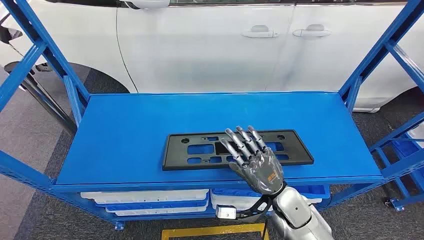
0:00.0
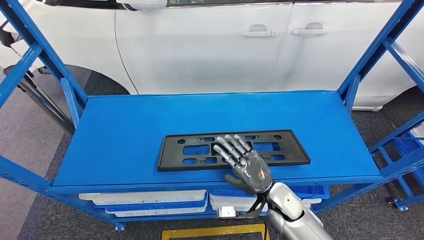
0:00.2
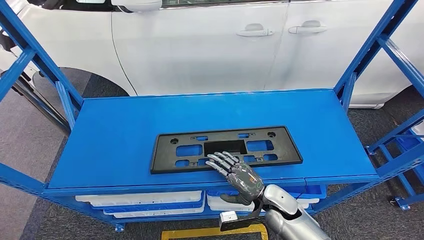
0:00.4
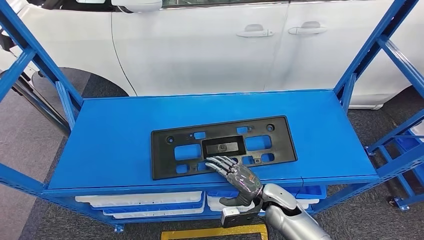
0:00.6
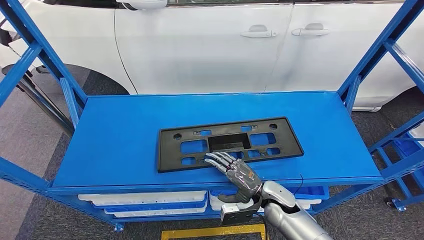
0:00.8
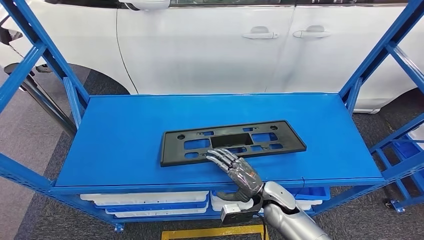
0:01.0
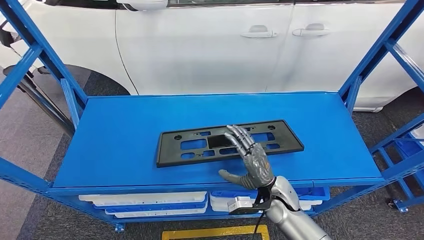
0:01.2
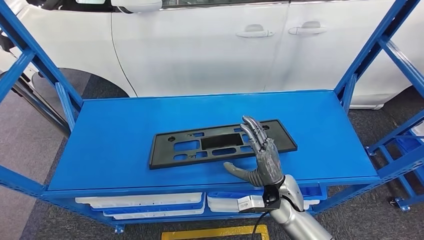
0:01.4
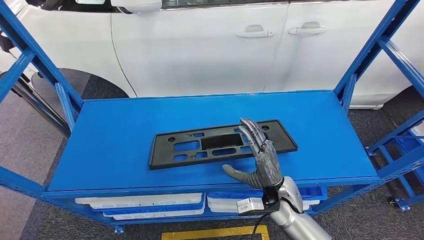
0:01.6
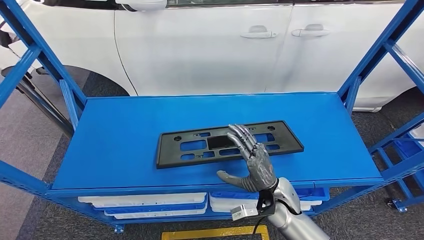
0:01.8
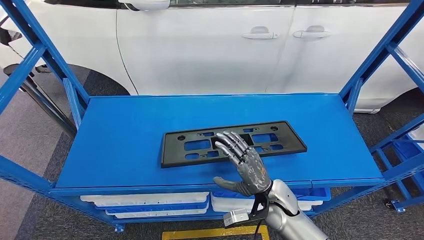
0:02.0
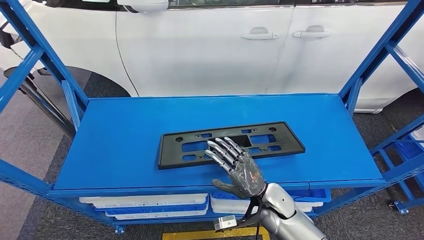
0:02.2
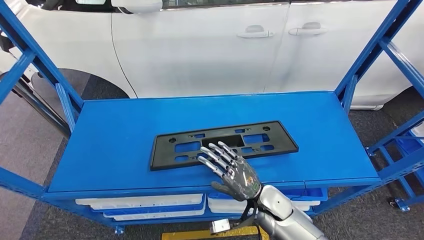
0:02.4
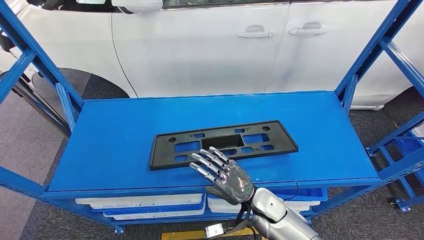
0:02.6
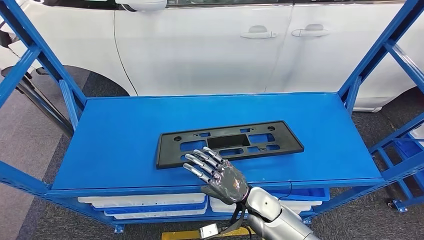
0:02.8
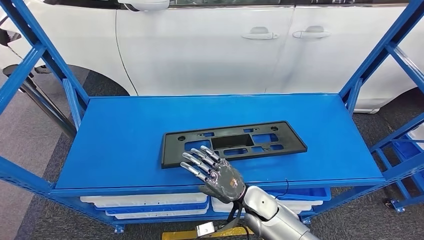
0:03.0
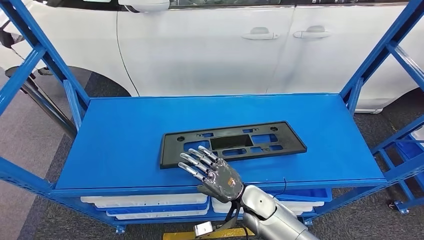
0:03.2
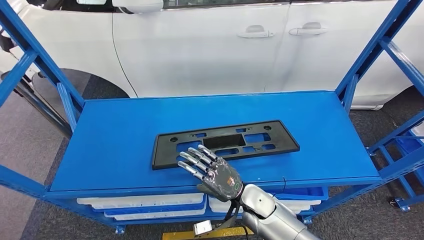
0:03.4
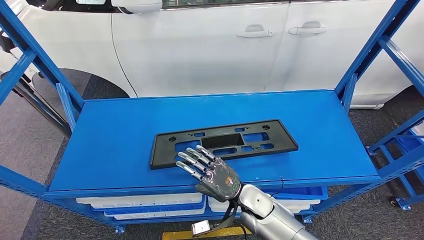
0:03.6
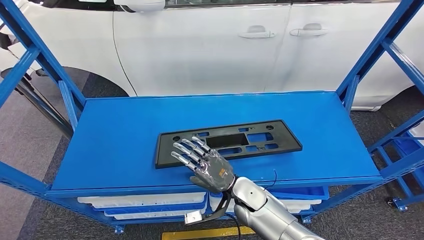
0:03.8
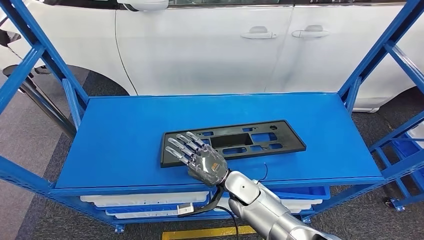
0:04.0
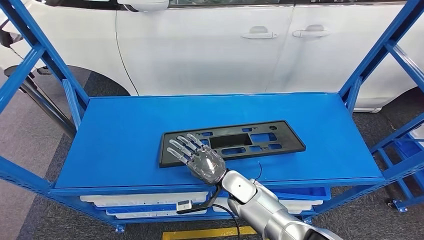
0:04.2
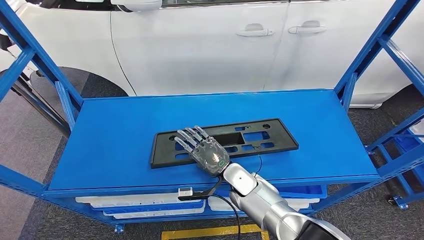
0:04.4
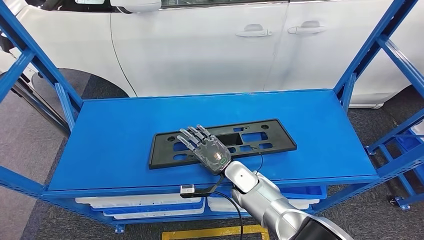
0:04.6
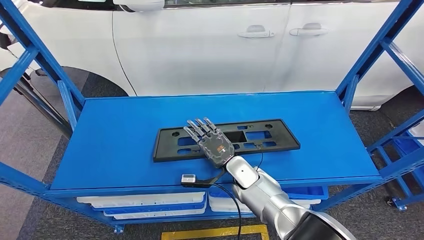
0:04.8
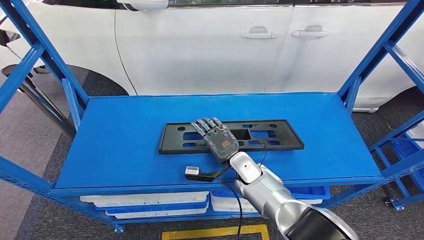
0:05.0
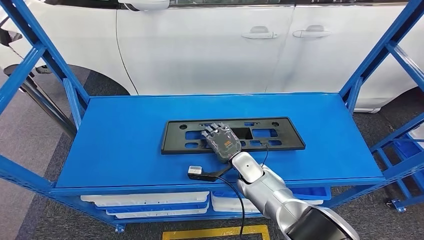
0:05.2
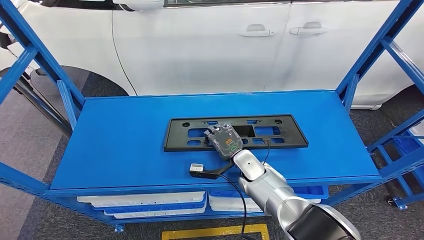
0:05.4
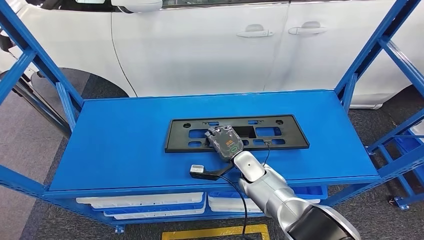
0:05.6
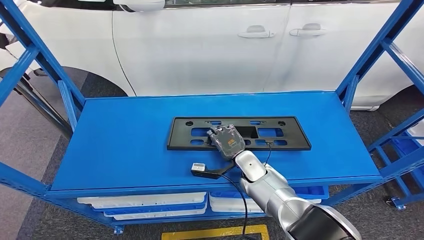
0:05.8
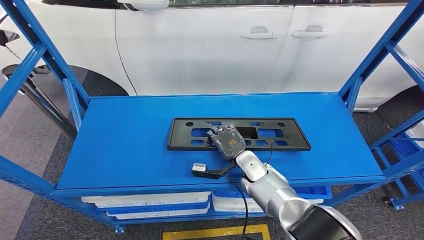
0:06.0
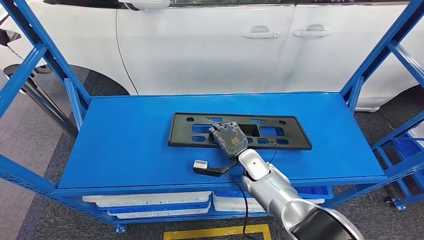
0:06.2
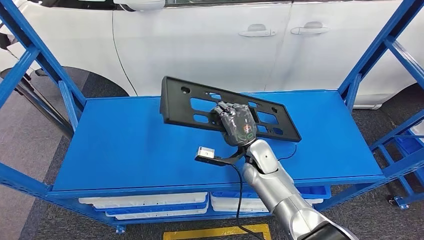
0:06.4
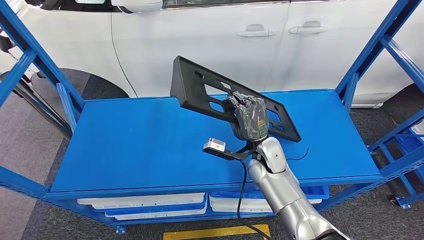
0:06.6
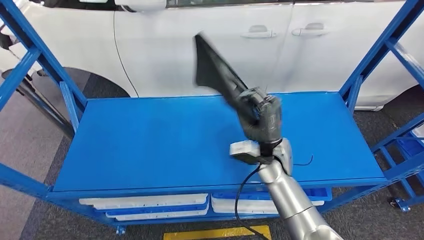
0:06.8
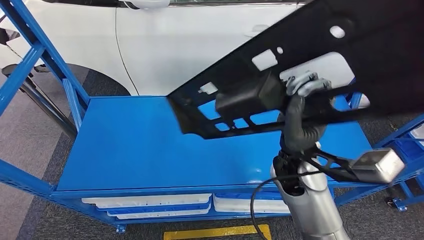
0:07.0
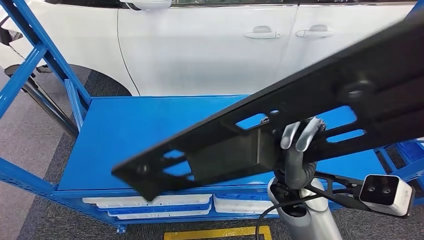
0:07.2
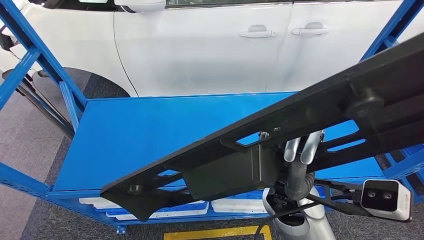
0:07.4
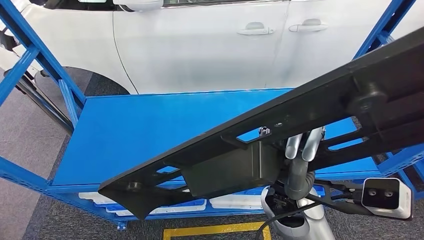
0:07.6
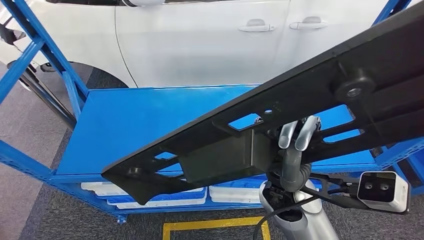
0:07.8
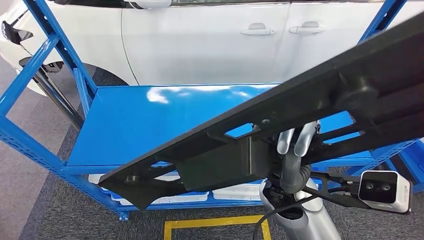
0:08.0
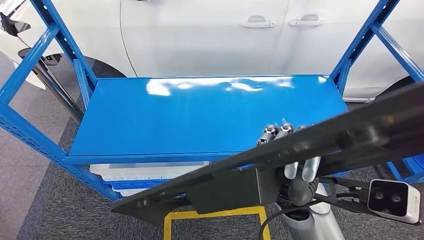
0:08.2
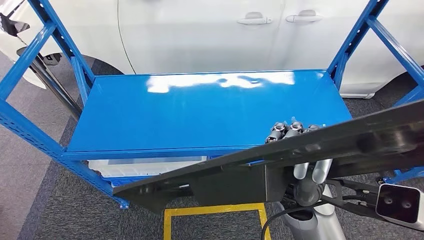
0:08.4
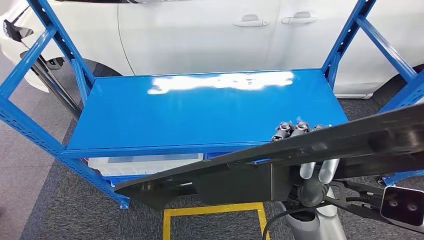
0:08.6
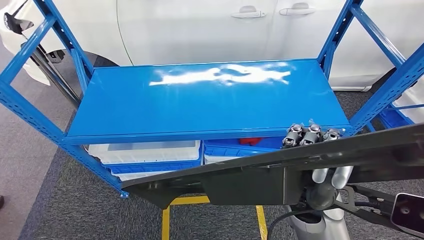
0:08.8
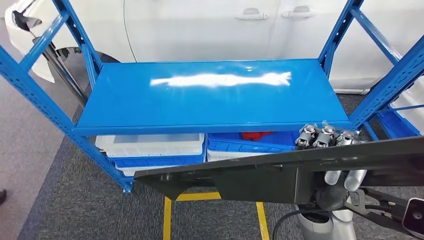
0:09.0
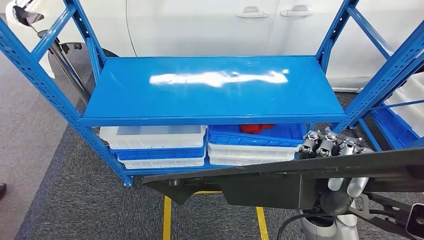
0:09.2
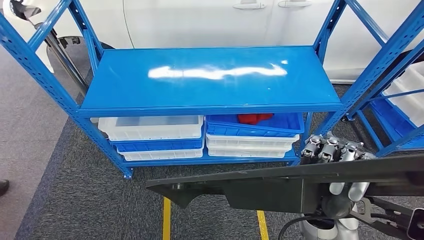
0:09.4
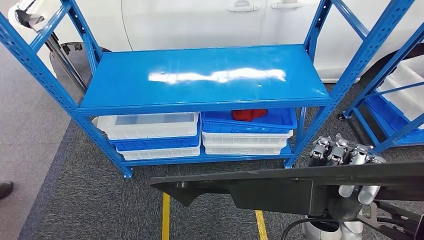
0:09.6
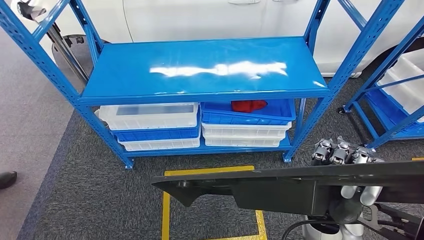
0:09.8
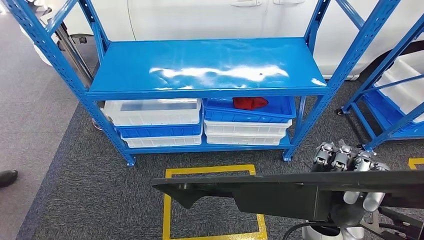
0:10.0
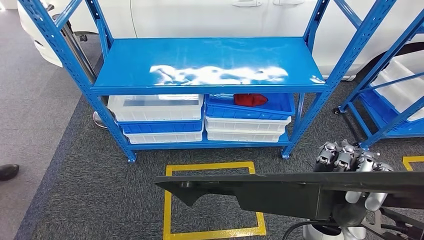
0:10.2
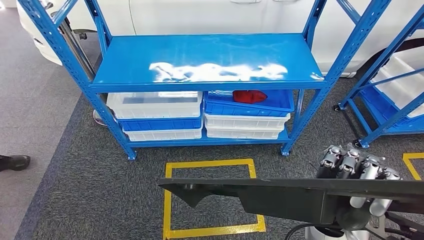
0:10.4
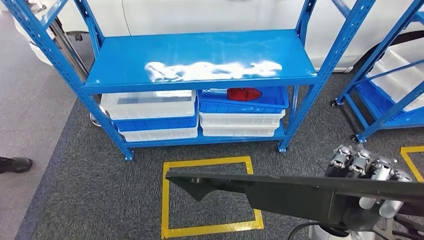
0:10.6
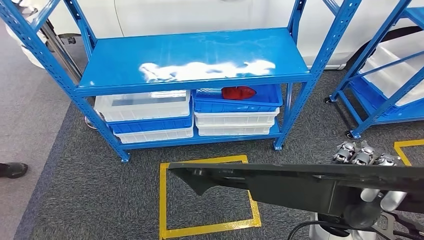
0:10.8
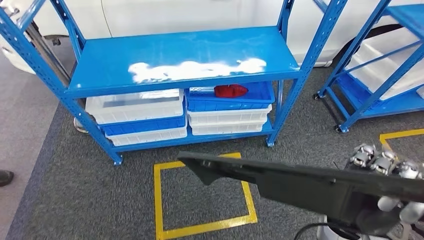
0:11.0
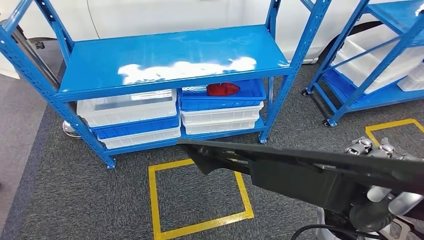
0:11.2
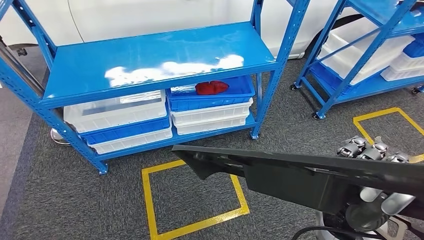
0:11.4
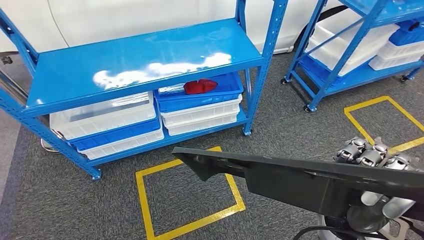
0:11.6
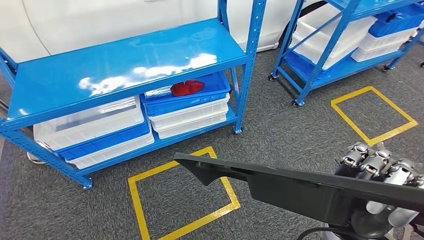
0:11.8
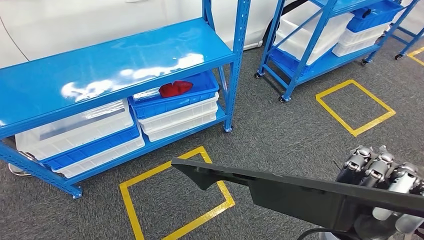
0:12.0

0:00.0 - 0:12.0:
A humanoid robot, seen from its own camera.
Step, 0:00.0 - 0:07.6: Pick up the large material from the shelf.

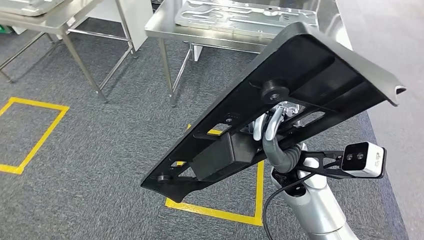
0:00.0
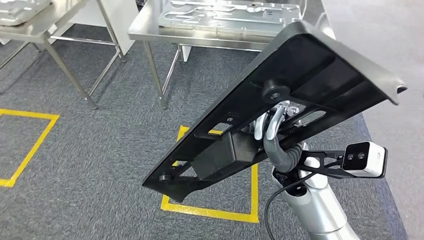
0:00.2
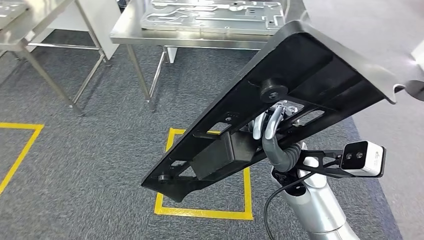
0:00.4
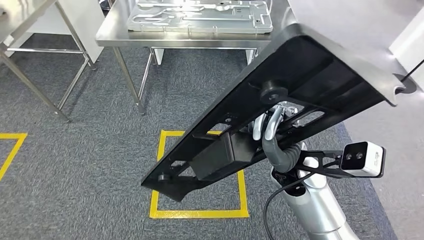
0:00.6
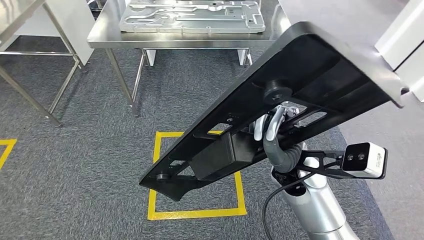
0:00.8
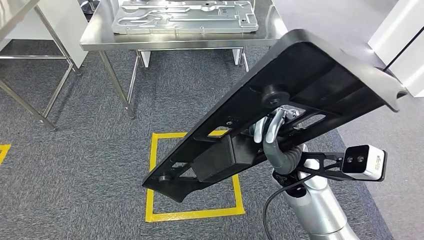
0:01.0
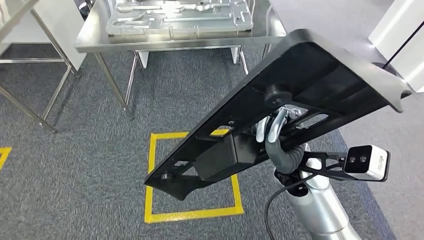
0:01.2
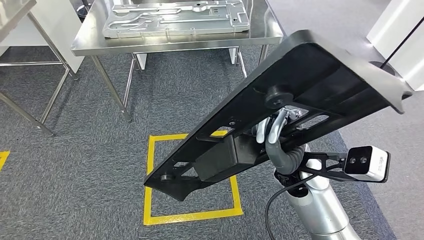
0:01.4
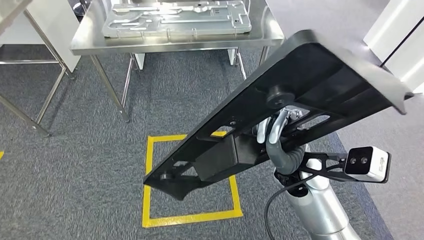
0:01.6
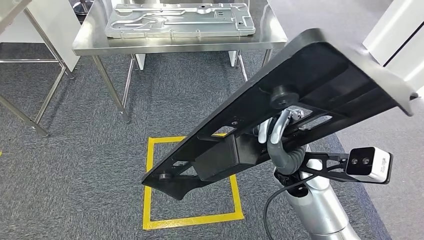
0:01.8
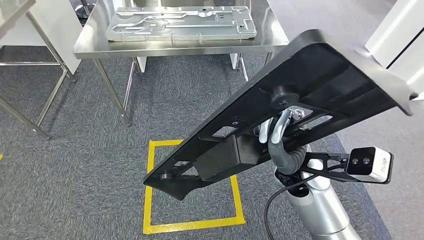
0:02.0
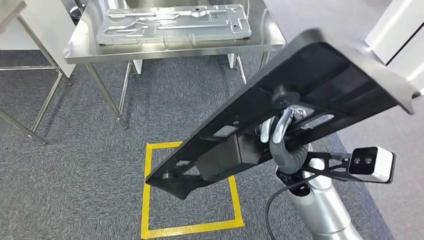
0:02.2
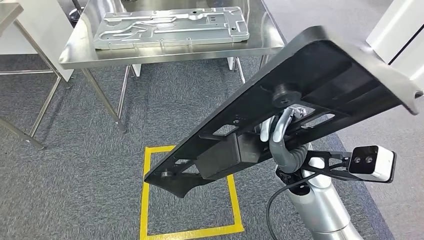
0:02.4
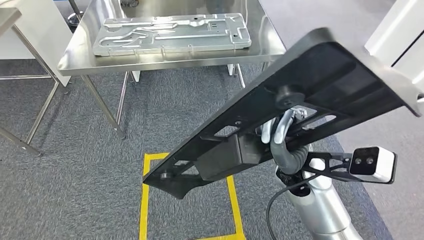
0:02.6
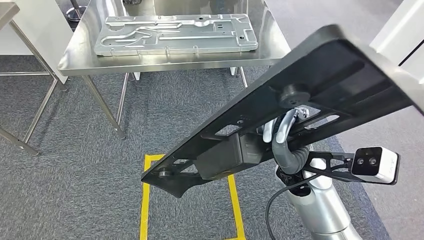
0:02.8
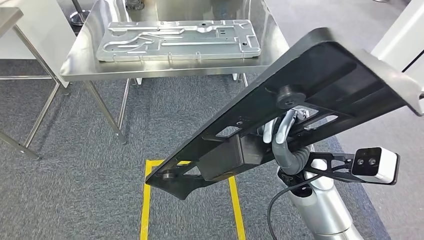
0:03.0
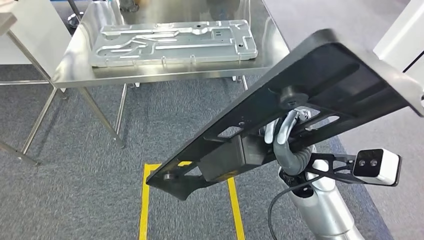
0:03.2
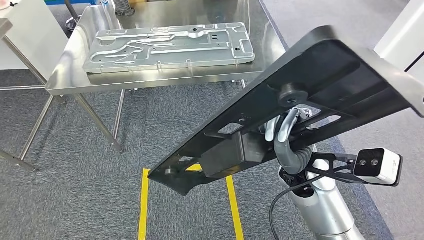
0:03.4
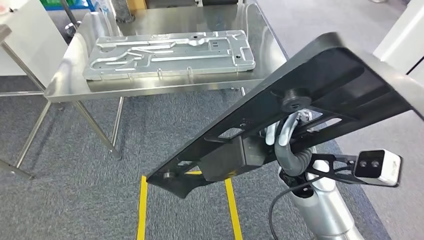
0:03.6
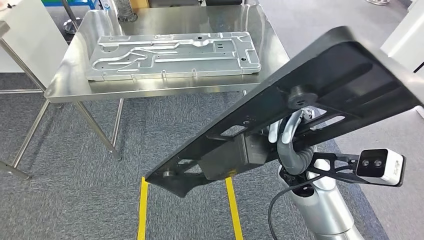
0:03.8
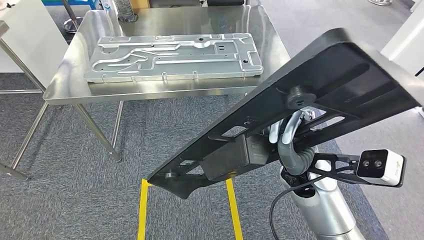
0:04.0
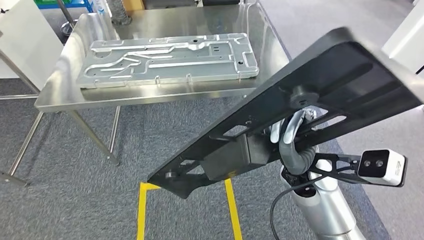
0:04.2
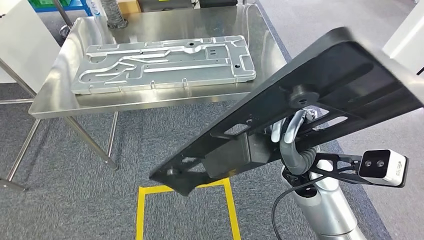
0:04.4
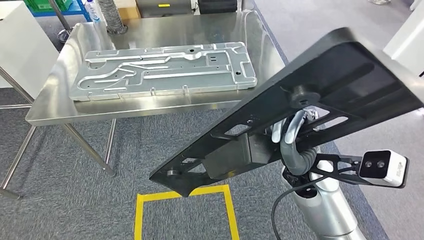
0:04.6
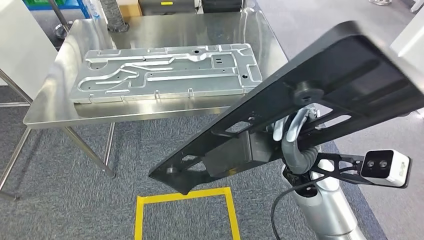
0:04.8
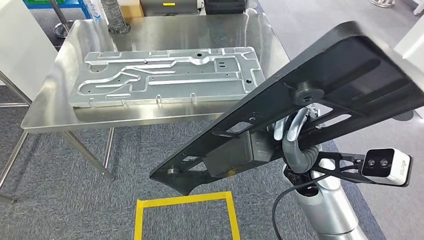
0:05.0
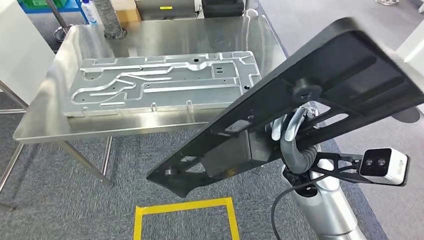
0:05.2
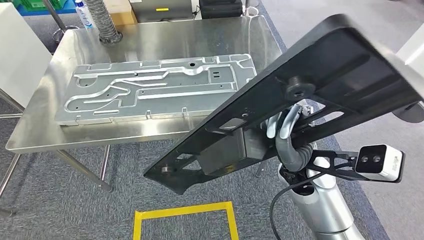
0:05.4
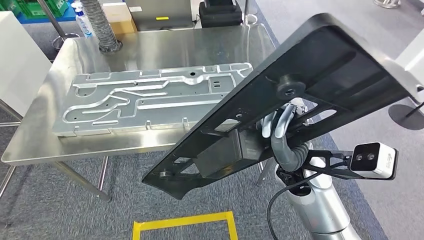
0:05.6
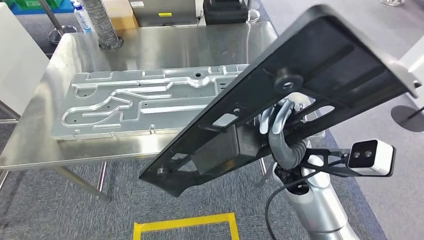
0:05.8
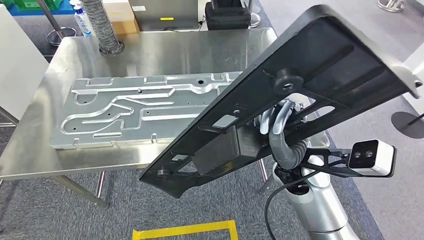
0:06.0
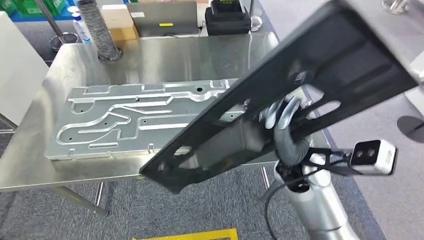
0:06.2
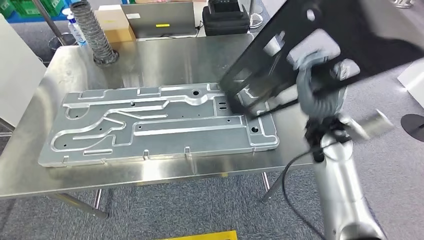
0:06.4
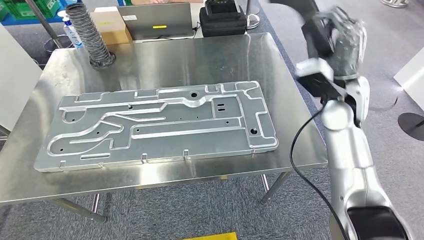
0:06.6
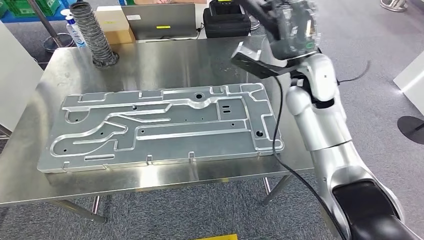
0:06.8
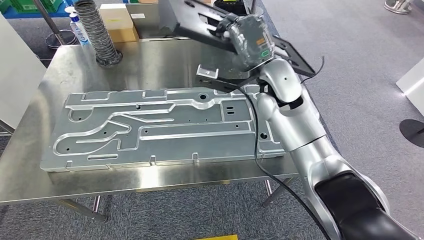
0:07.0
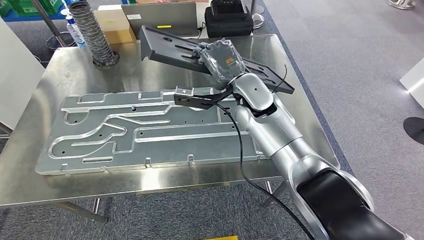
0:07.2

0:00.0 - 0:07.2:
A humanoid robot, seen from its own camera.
Step, 0:00.0 - 0:05.2: Move the large material to the workbench.
